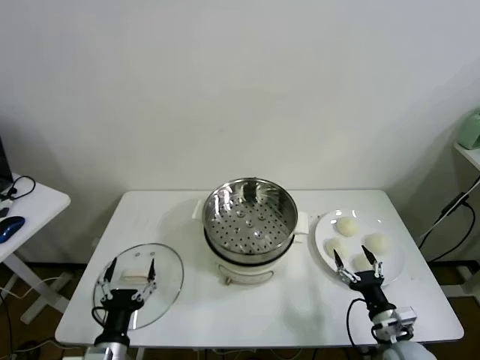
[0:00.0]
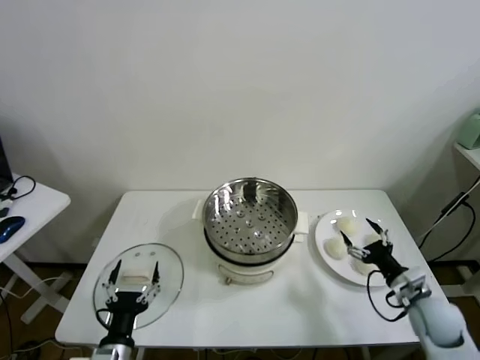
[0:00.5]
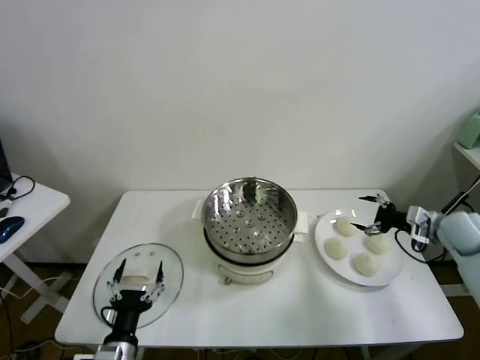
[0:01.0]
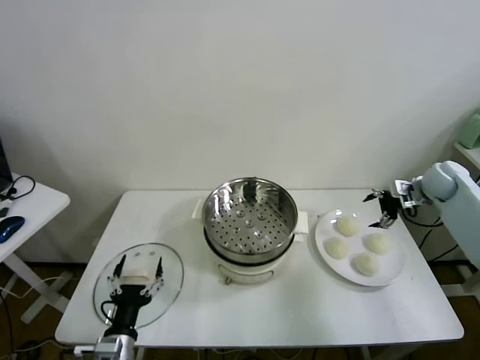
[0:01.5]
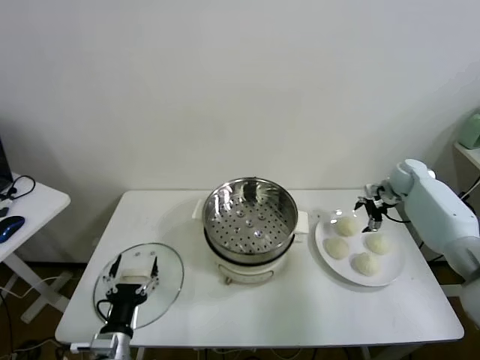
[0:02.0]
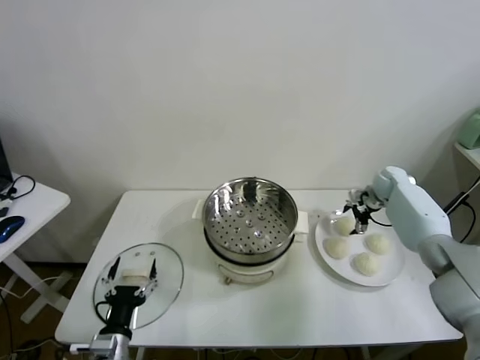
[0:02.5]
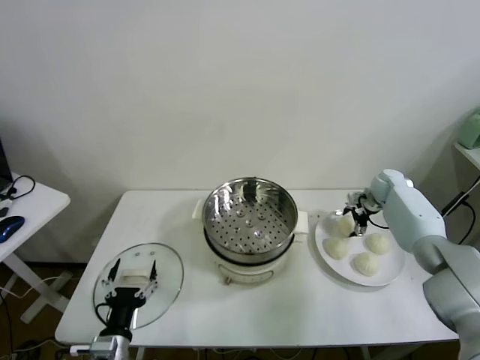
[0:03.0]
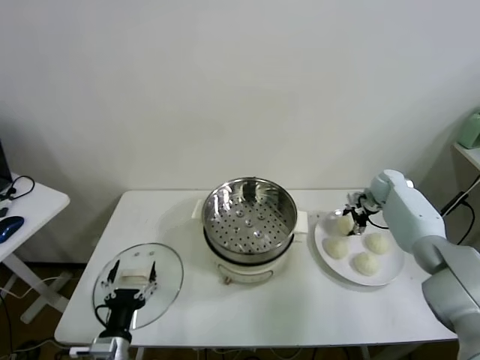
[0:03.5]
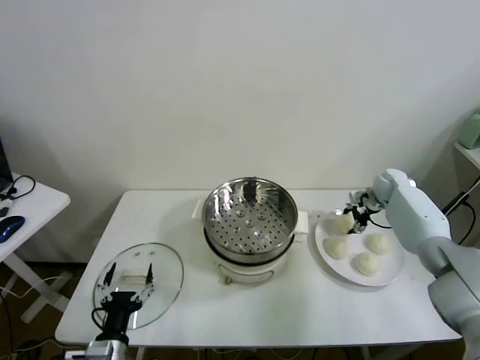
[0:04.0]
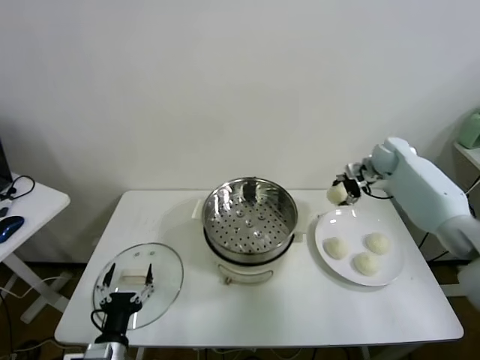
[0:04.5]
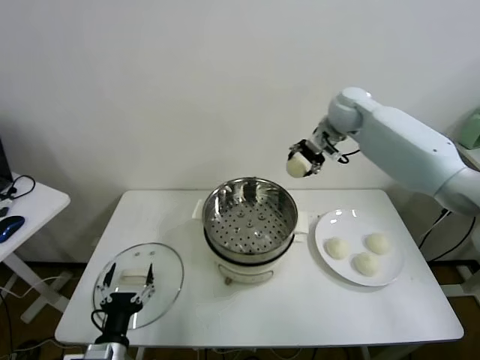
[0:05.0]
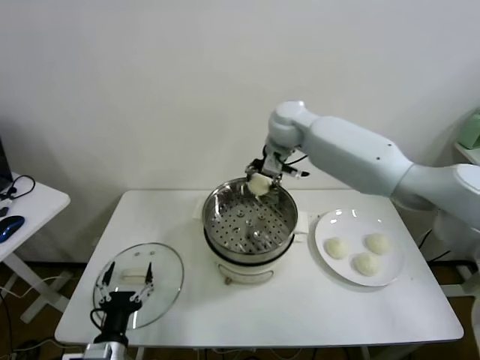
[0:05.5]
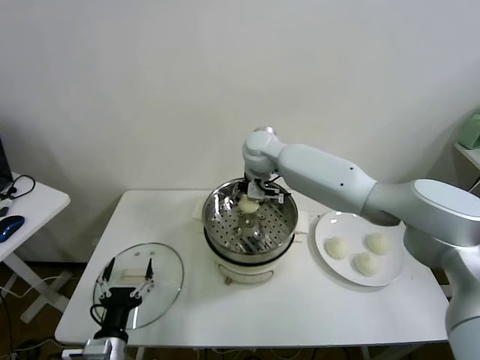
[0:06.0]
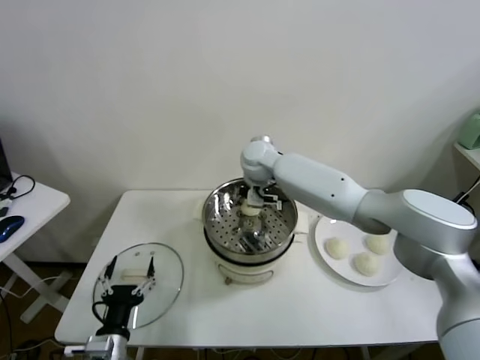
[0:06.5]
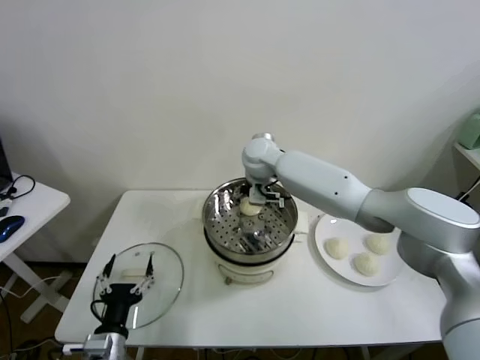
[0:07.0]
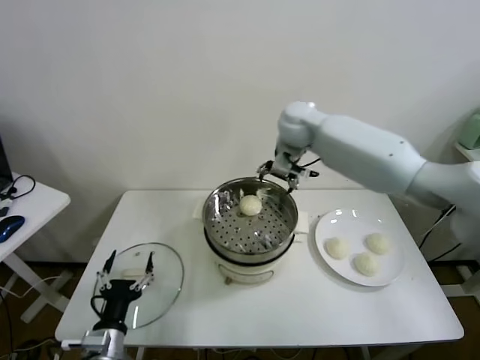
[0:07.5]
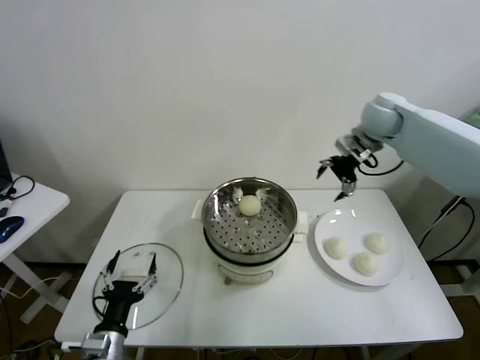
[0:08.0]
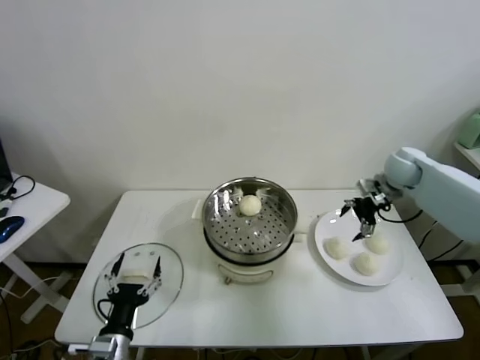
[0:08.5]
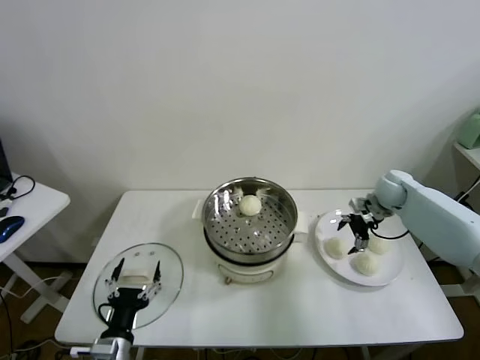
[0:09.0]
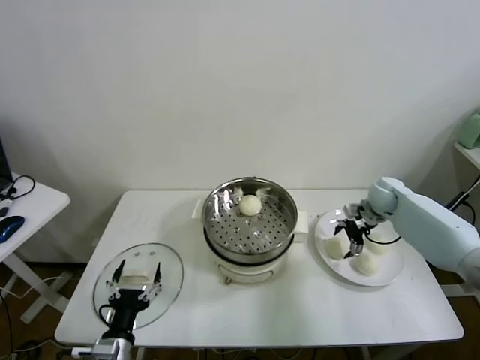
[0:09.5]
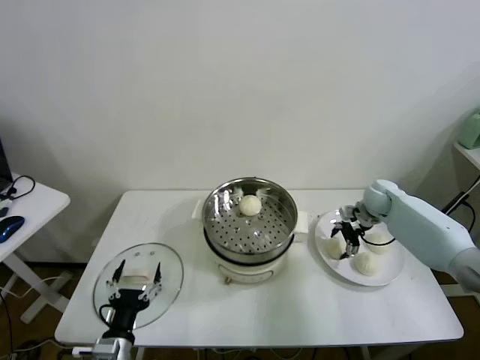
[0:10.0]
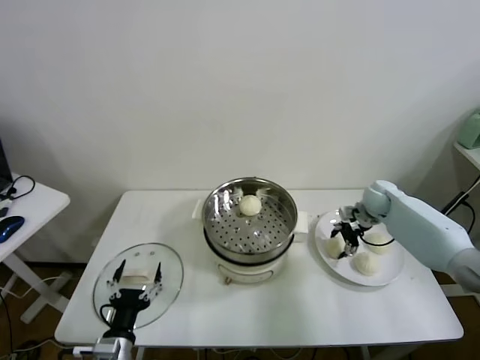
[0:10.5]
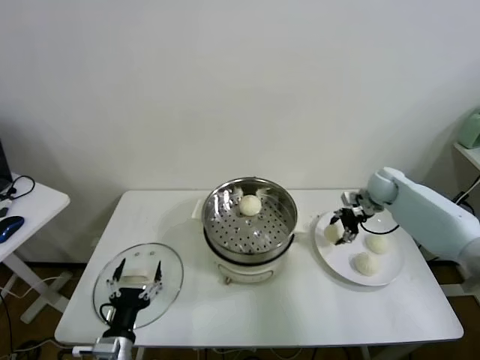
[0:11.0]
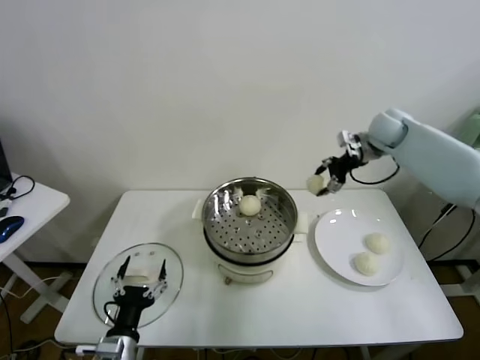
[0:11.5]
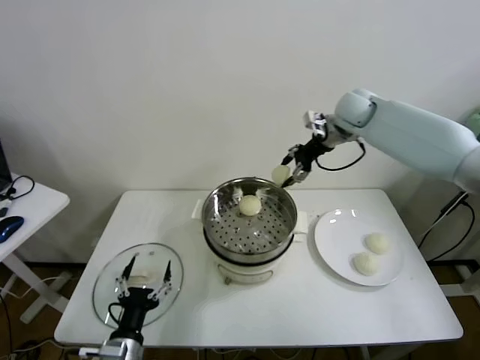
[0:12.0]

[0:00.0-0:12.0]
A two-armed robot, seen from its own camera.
Task of the whole recording: take steamed baozi put them in steamer.
Step, 0:00.0 to 0:03.0: Grasp the baozi in the plate with right gripper.
Step, 0:03.5 to 0:07.0: Place the baozi on the steamer with right gripper.
Step, 0:07.5 to 0:10.0: Grasp the baozi in the plate with right gripper.
0:02.0 to 0:04.0: The right gripper closes its fingers.
0:04.0 to 0:06.0: The right gripper heads to the left, covering roughly 40 cm.
0:06.0 to 0:08.0: The right gripper shifts roughly 30 cm to the right, and opens.
0:08.0 to 0:10.0: The right gripper shifts approximately 25 cm downward.
0:10.0 to 0:12.0: The right gripper travels upward and to the left by approximately 25 cm, and closes its fingers.

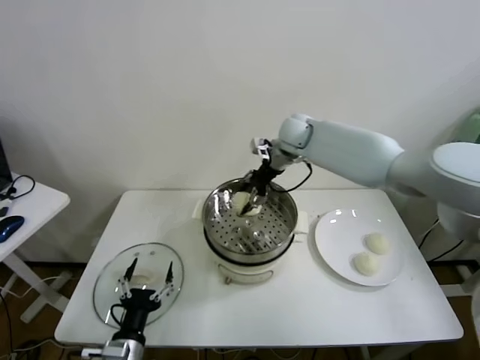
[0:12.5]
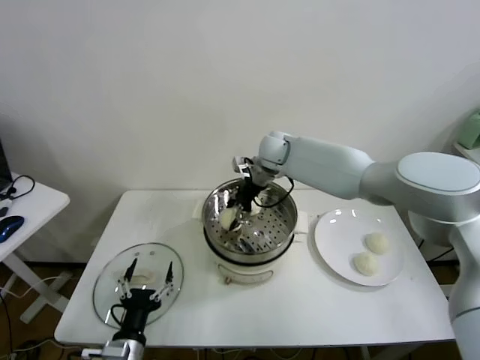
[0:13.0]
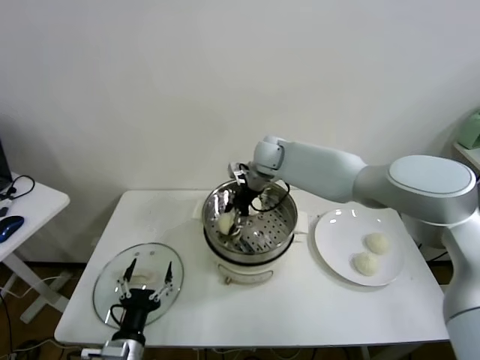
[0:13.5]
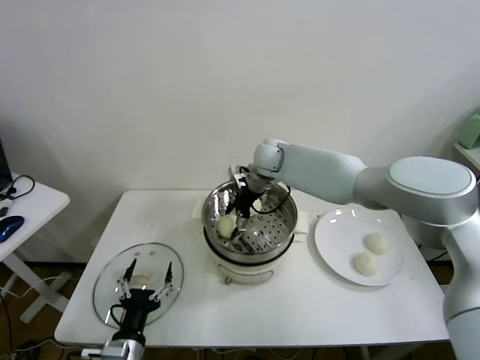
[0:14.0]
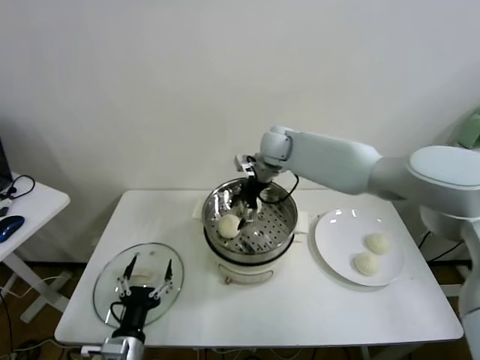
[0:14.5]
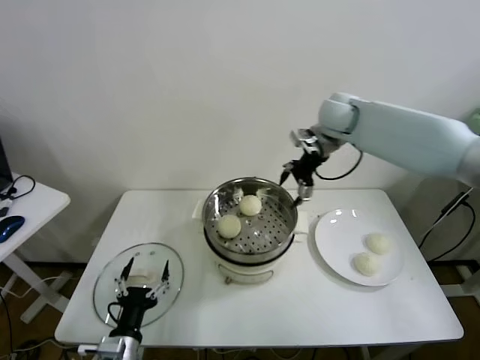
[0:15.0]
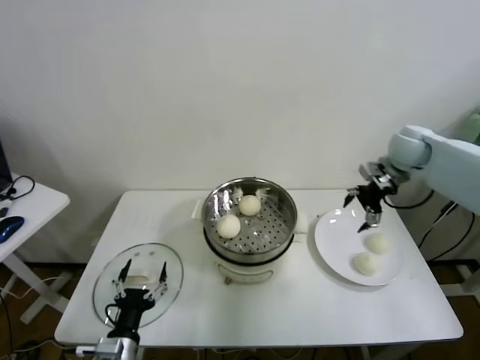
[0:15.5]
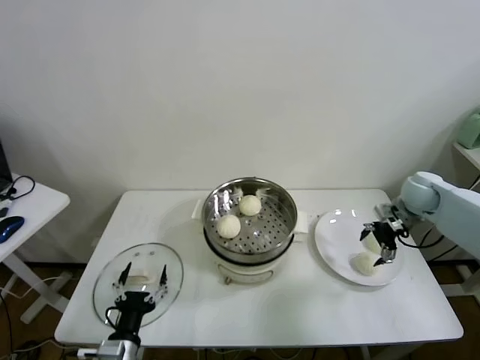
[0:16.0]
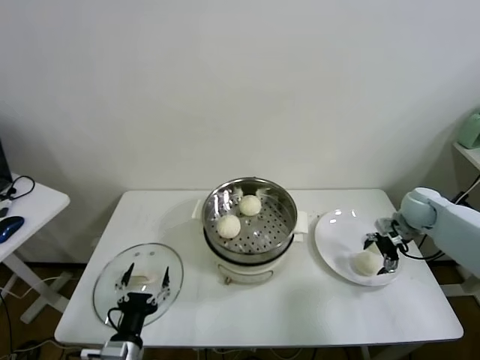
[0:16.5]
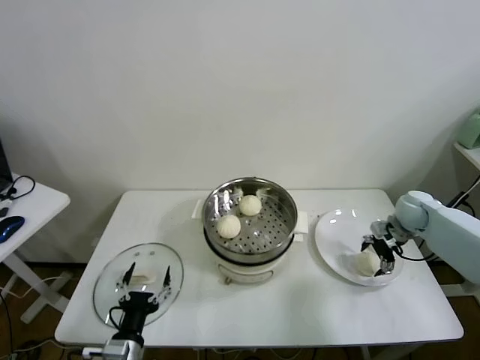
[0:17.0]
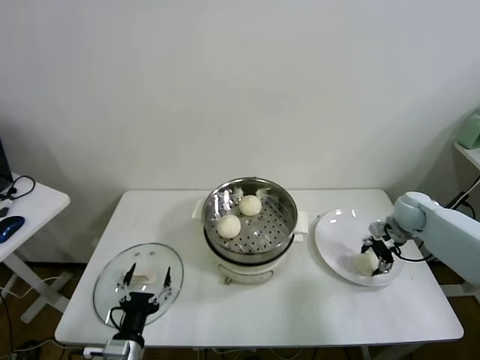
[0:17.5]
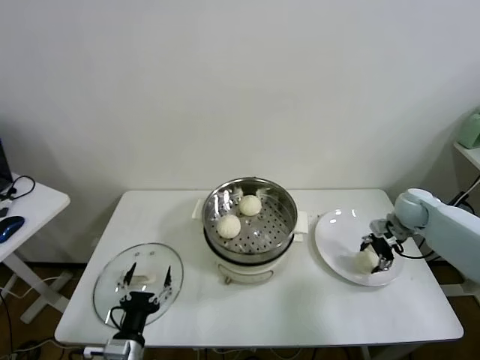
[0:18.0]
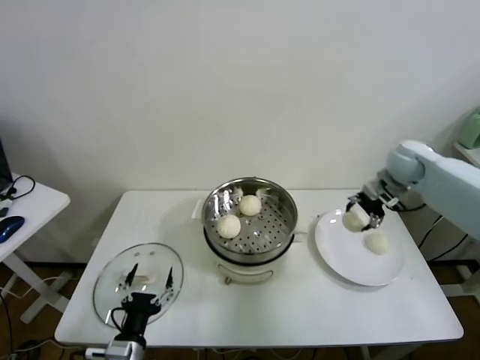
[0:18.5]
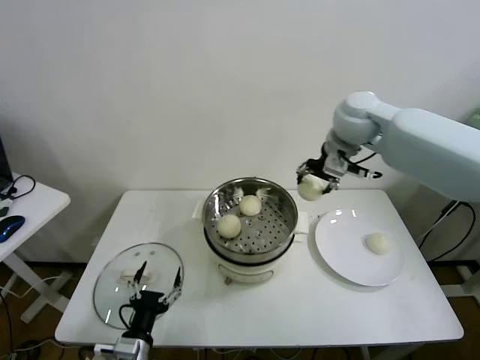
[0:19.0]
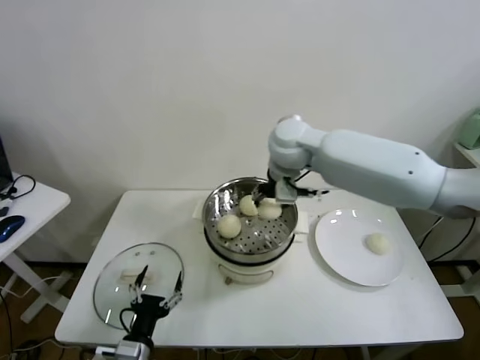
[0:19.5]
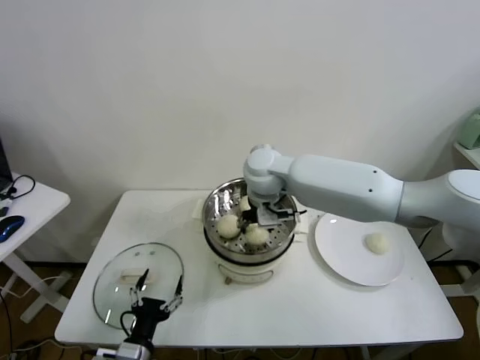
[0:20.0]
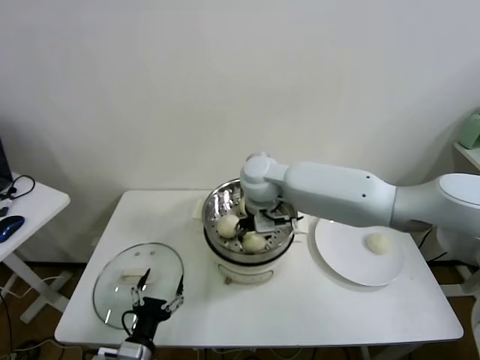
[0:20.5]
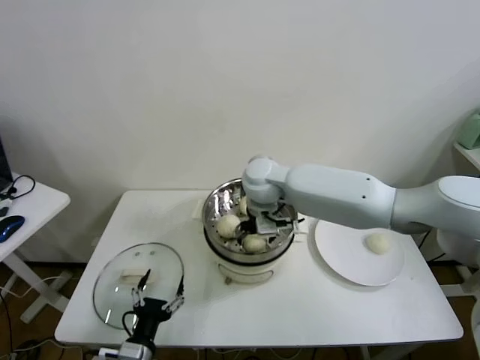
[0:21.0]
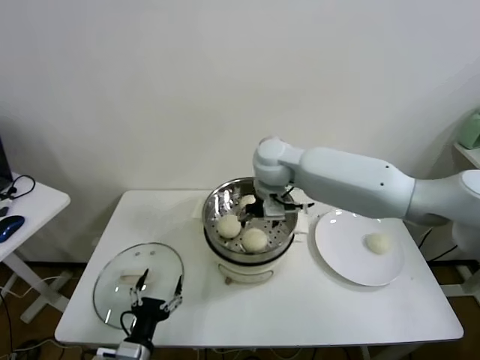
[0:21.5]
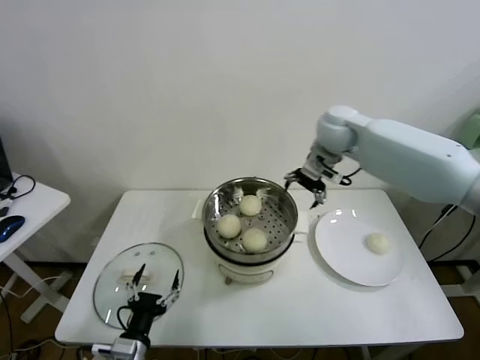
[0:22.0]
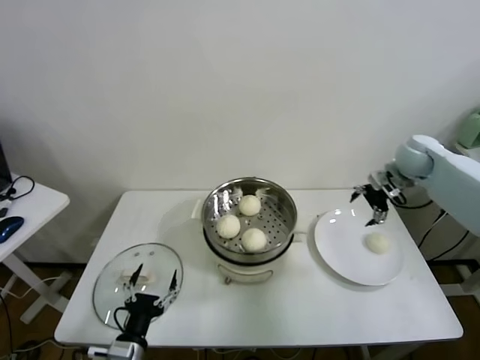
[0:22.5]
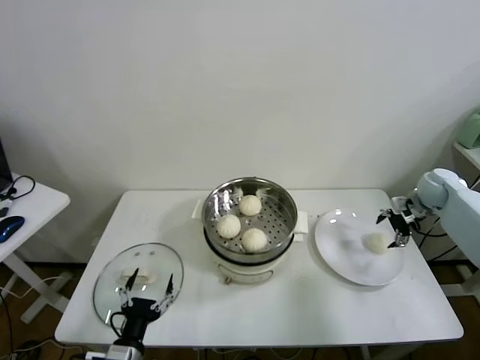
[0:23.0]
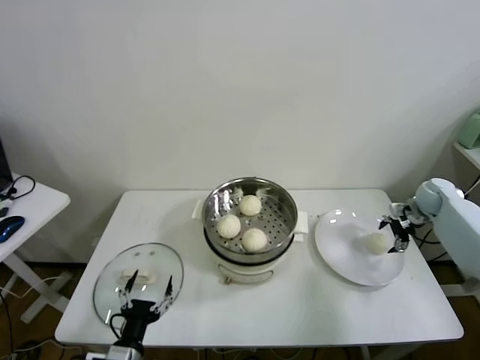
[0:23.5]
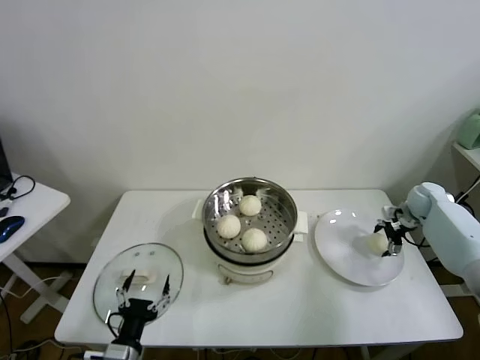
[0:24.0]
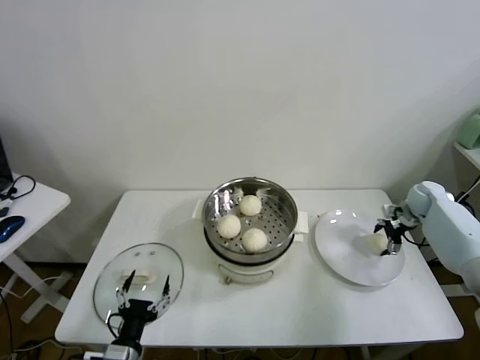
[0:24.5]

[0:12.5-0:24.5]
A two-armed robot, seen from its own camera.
Task of the whole recording: take steamed baozi put them in steamer.
Step, 0:14.5 to 0:17.5: Grasp the baozi in the plate with right gripper.
Step, 0:18.0 to 0:21.0: Place the baozi on the steamer with right gripper.
0:12.5 to 0:14.5: The right gripper opens up.
0:14.5 to 0:16.5: The right gripper shifts roughly 35 cm to the right.
0:16.5 to 0:18.5: The right gripper moves upward and to the left, some 15 cm, and closes its fingers.
0:18.5 to 0:20.5: The right gripper is displaced to the left by some 35 cm.
0:20.5 to 0:22.5: The right gripper moves to the right, roughly 35 cm, and opens up.
0:22.5 to 0:24.5: The right gripper heads downward and to the right, covering approximately 20 cm.

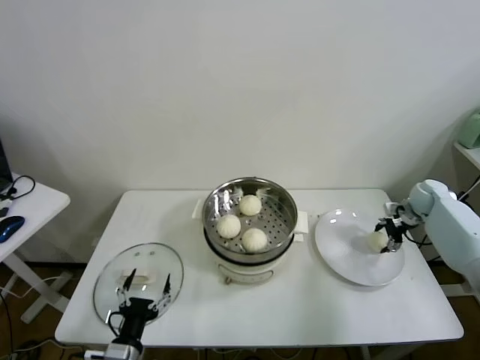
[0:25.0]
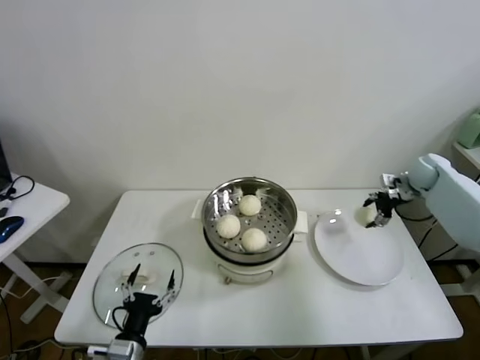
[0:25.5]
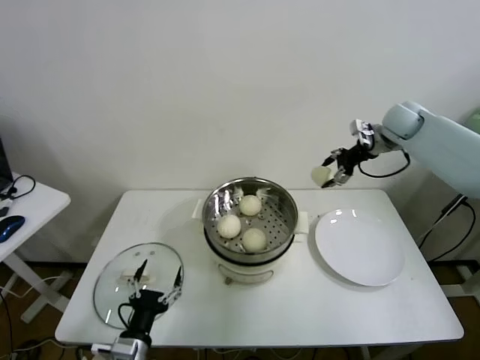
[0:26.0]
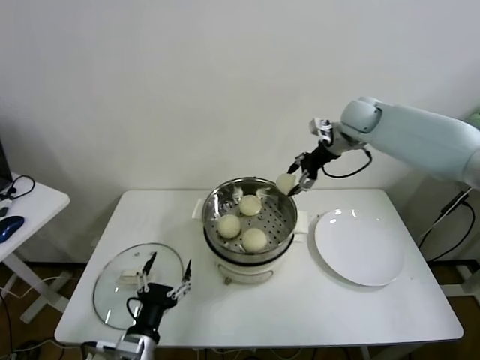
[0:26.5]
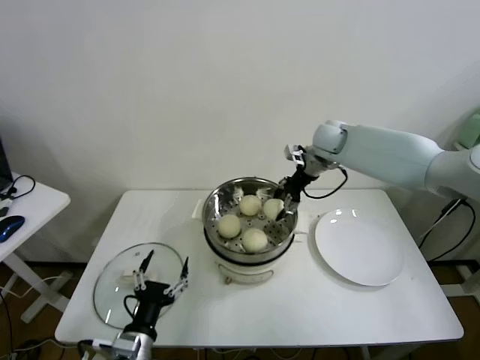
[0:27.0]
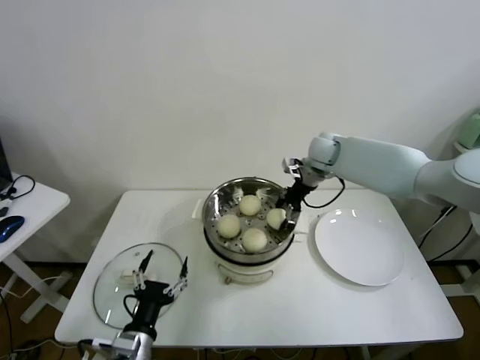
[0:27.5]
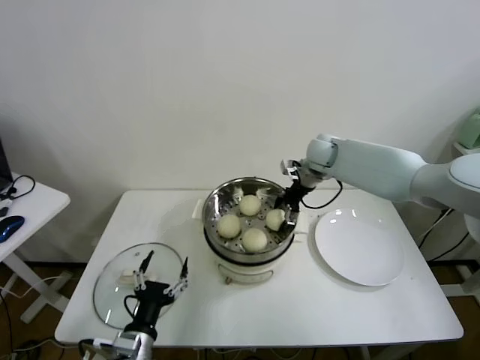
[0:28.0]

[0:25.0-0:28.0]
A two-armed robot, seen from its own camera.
Task of the whole recording: take steamed baozi put them in steamer.
0:25.0 to 0:26.5: The right gripper goes some 30 cm to the left and upward; the left gripper changes place by about 5 cm.
0:26.5 to 0:28.0: The right gripper heads downward and to the left, covering approximately 10 cm, and opens.
